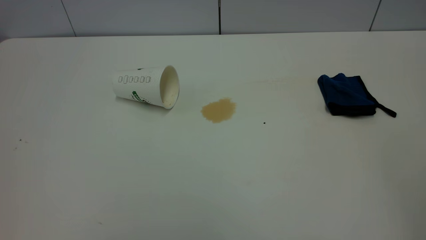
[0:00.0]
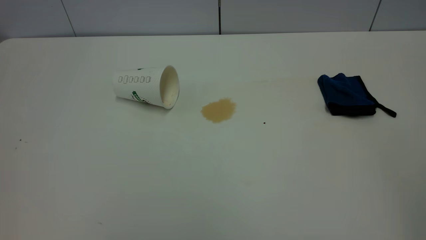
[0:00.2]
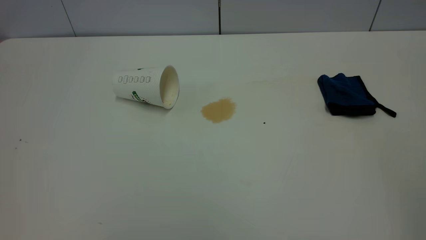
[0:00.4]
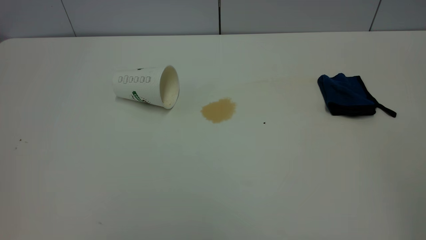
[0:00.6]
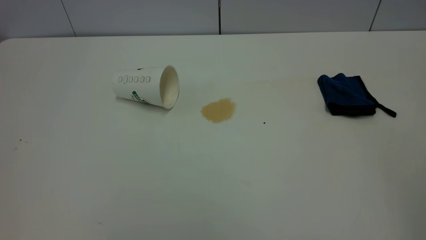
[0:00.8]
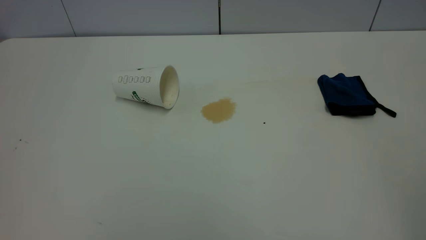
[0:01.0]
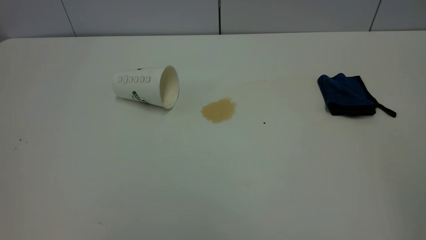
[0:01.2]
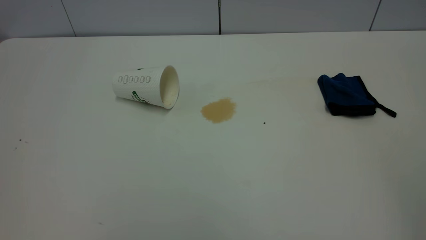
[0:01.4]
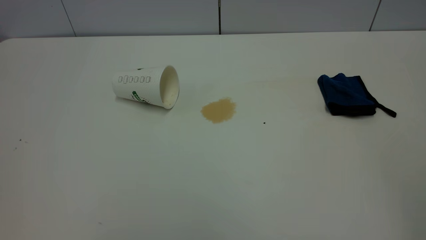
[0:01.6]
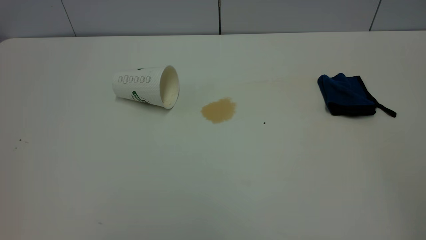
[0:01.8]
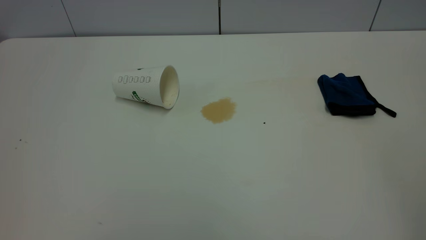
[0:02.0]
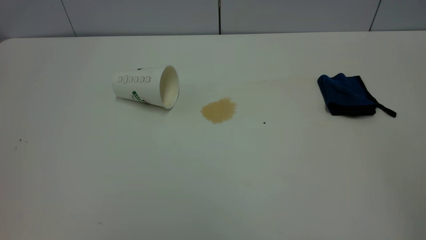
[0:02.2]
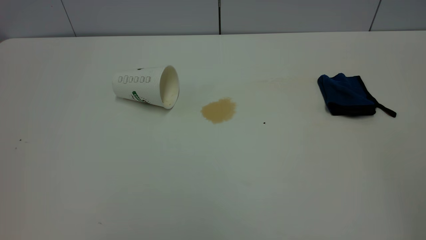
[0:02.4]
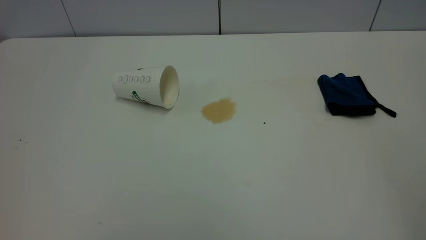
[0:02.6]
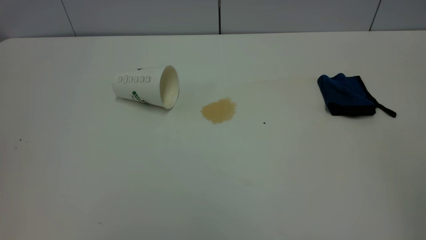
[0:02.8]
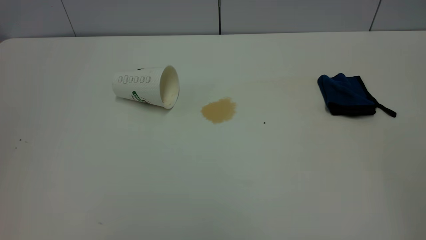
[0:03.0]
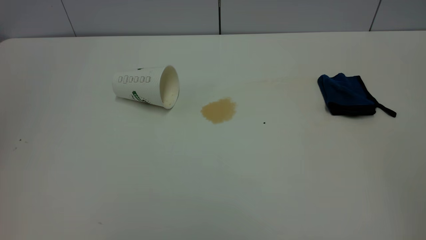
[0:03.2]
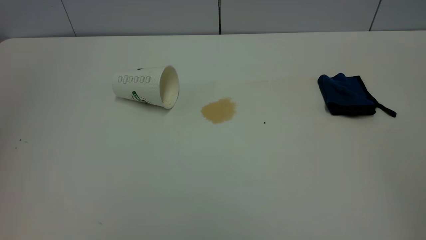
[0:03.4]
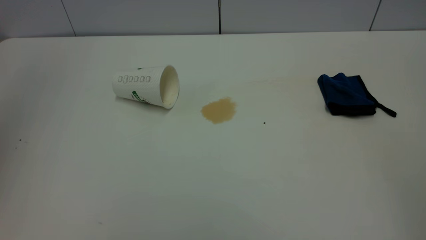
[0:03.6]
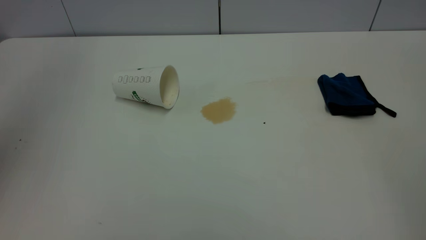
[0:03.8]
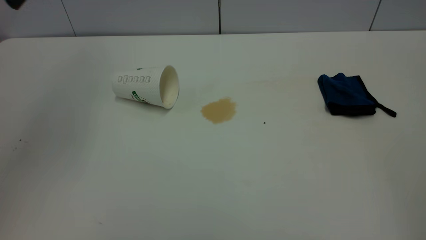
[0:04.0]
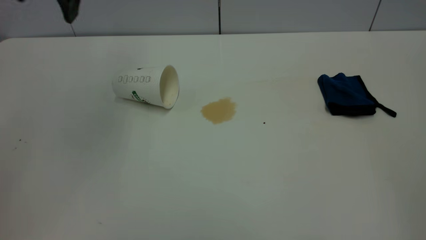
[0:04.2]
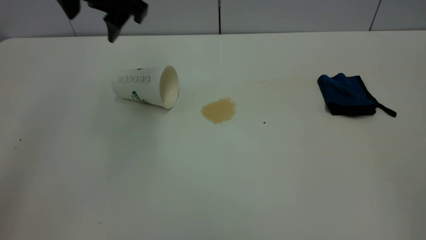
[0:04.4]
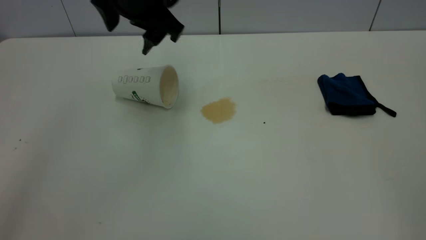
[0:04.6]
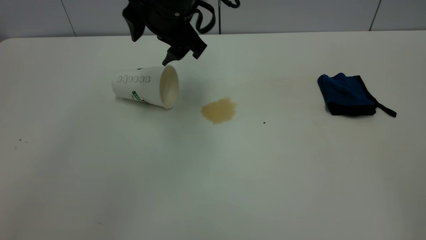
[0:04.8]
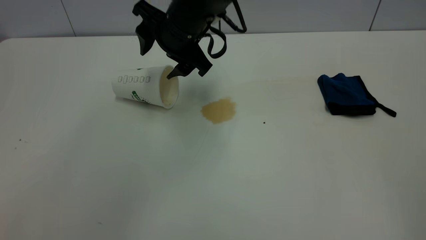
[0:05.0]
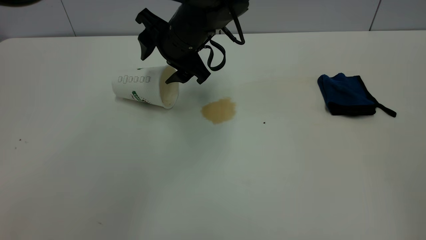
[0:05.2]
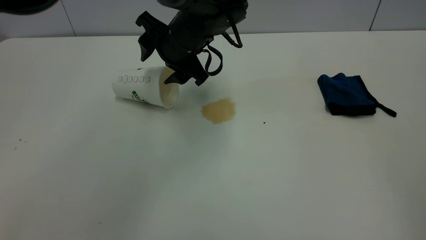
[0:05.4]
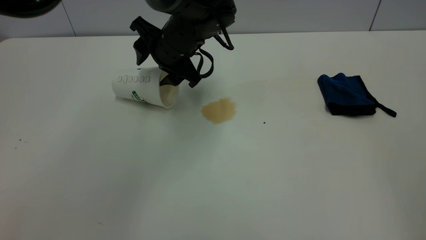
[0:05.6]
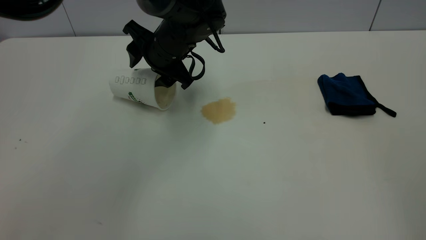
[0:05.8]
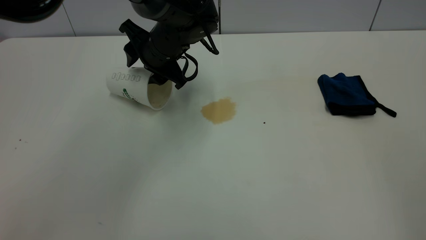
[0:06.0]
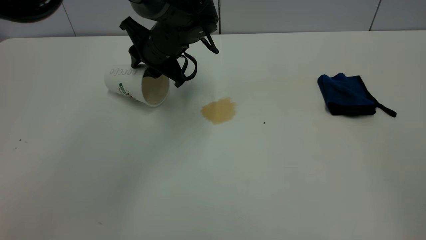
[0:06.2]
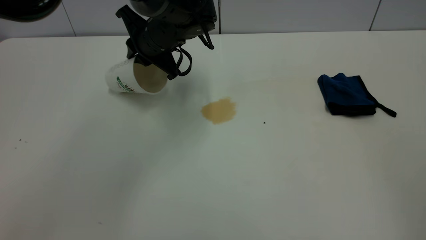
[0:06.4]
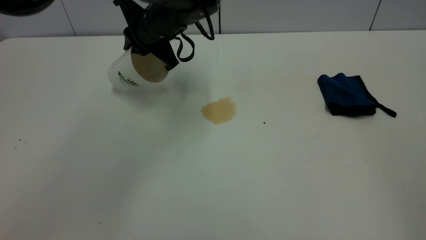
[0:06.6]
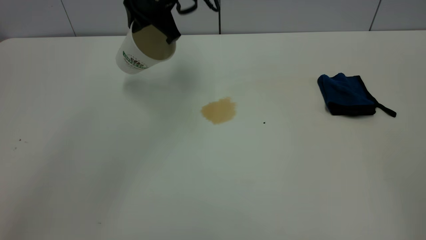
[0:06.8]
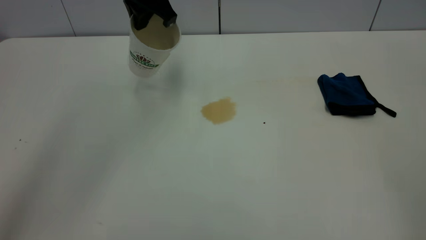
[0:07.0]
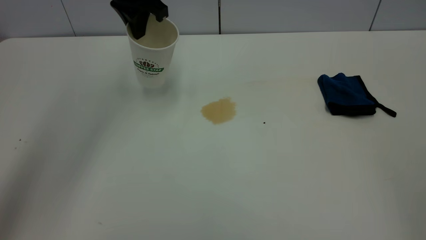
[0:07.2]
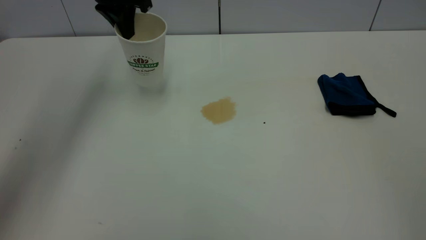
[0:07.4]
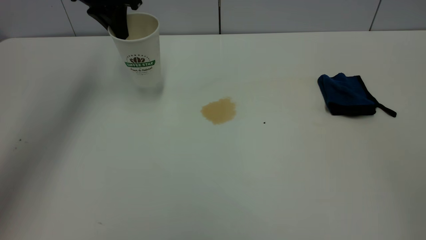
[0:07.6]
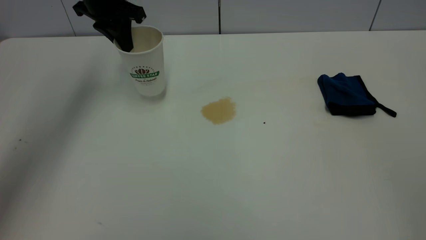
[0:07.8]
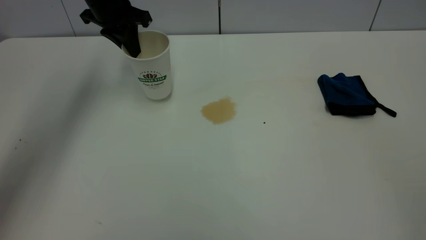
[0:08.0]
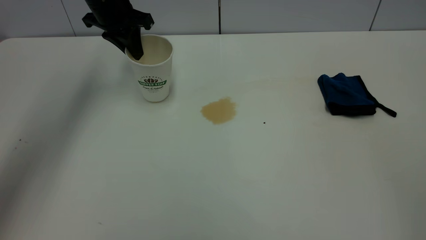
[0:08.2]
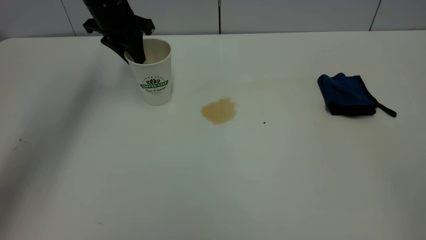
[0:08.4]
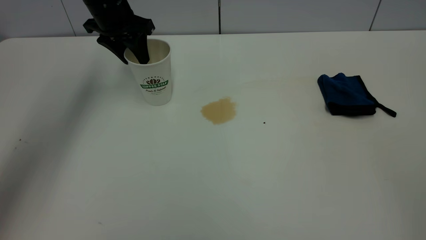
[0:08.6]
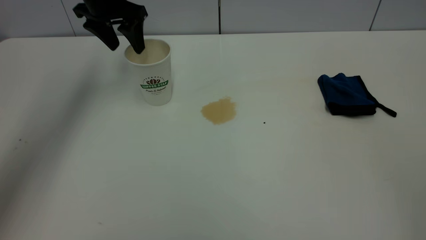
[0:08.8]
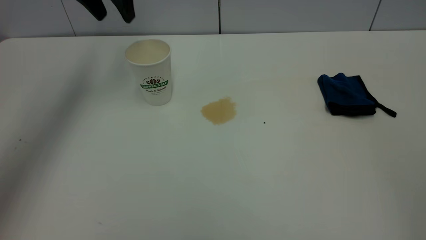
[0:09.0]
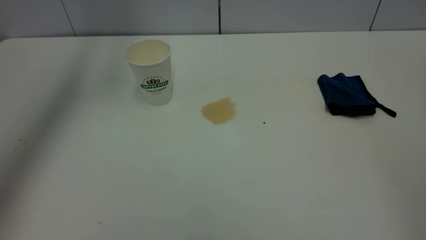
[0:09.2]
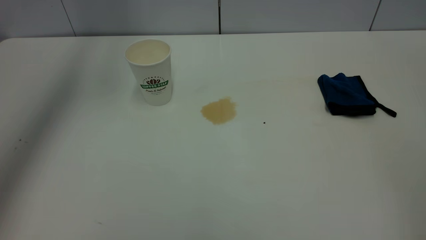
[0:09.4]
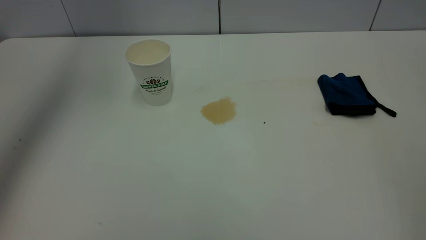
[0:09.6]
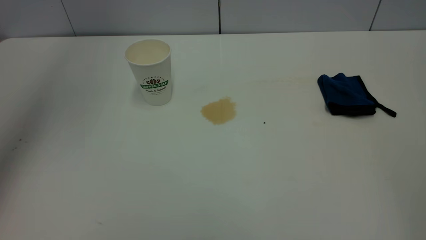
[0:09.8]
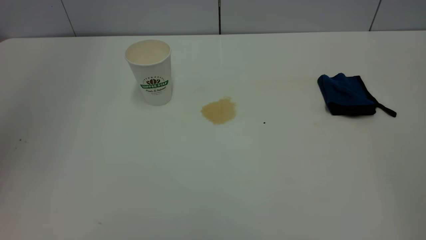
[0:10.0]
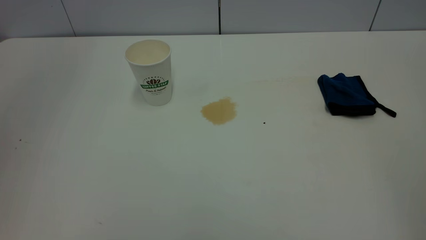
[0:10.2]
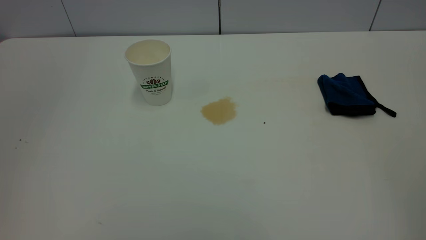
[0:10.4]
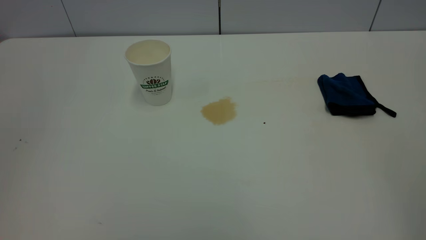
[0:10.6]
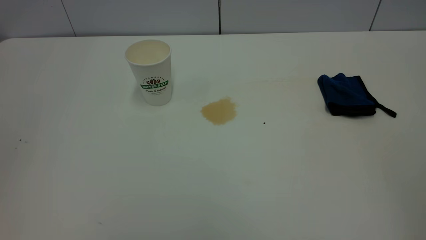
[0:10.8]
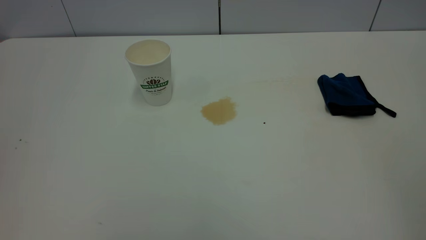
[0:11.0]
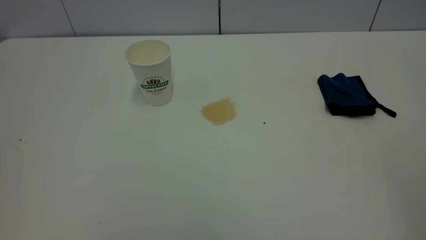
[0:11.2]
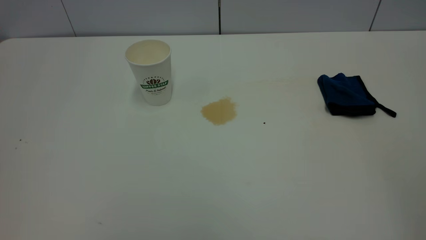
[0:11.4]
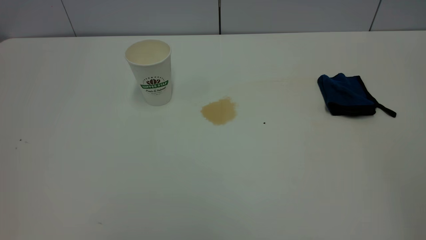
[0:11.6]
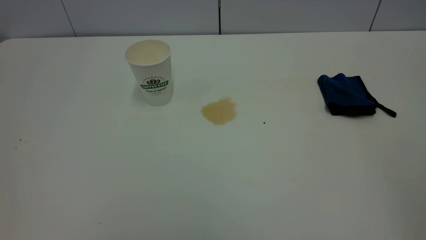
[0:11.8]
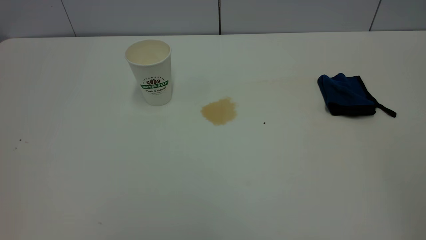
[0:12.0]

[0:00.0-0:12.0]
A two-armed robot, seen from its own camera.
Task of the whole recording: the left gripper pick up the fallen cup and place it upright, the right gripper grasp the blue rag and wipe the tea stain on the table, the right gripper put the blue rag back in its original position.
Step, 0:00.0 to 0:08.8: Stand the paper cup upright.
0:00.0 to 0:01.6: Both grippers stay put.
0:03.0 to 0:04.4: The left gripper heads forward, to the right and downward, covering roughly 40 cm, and opens its fingers.
0:04.4 to 0:06.0: The left gripper shifts approximately 15 cm downward and forward.
0:06.0 to 0:07.6: The left gripper moves to the left, upward and forward, some 15 cm, and closes its fingers.
0:07.6 to 0:09.0: The left gripper shifts about 5 cm upward, and opens.
0:09.0 to 0:10.4: The left gripper goes about 35 cm backward, and closes its fingers.

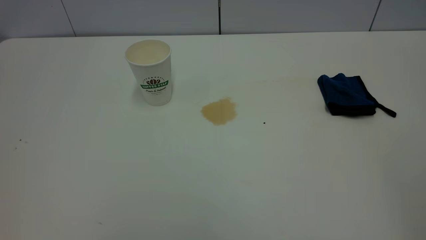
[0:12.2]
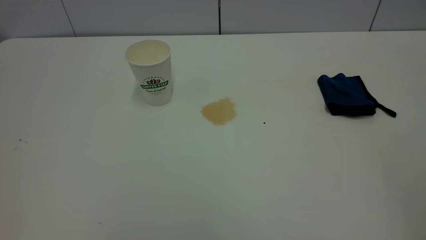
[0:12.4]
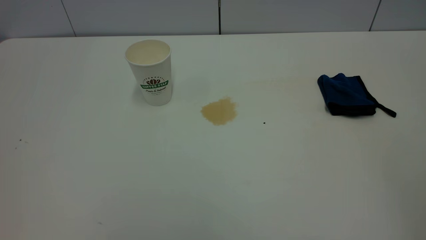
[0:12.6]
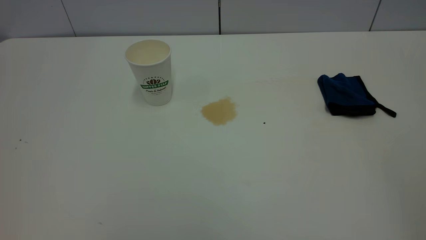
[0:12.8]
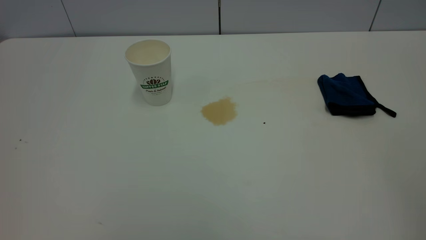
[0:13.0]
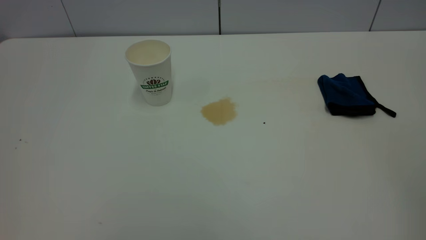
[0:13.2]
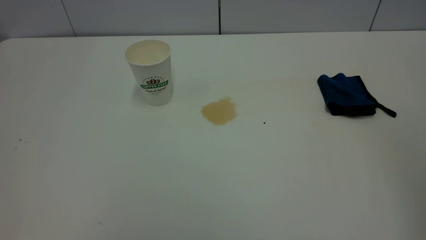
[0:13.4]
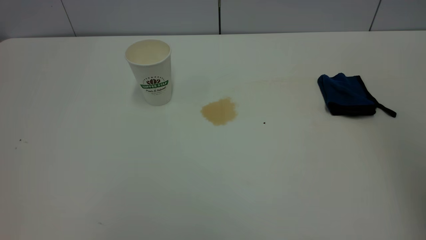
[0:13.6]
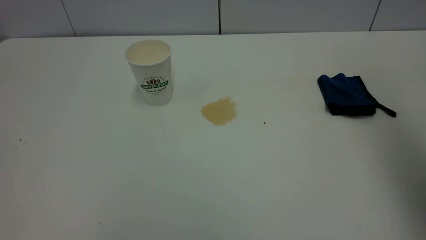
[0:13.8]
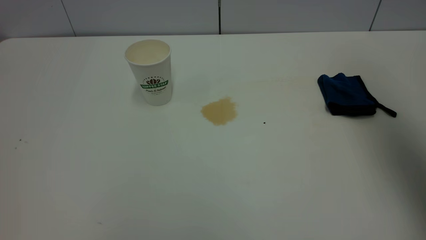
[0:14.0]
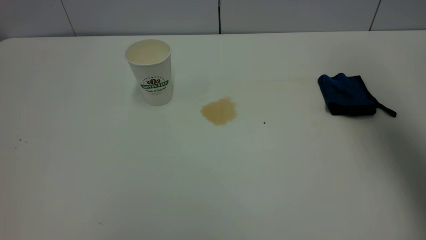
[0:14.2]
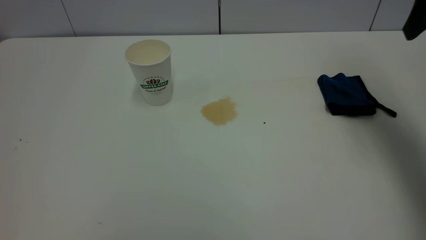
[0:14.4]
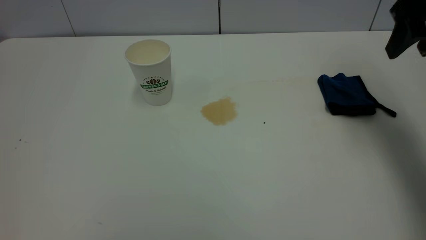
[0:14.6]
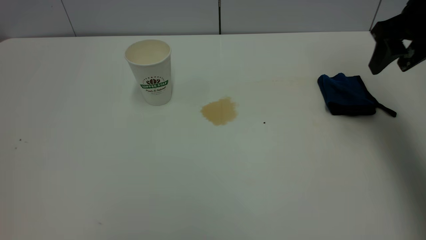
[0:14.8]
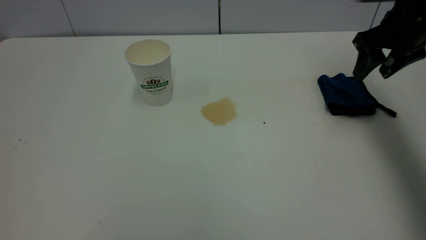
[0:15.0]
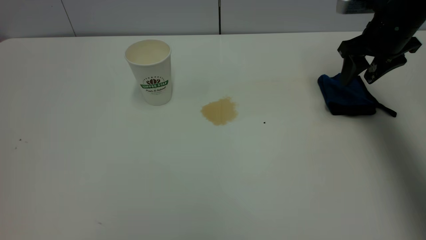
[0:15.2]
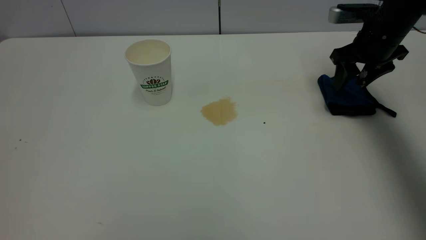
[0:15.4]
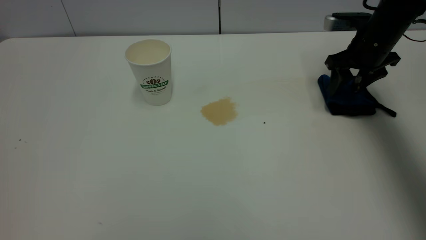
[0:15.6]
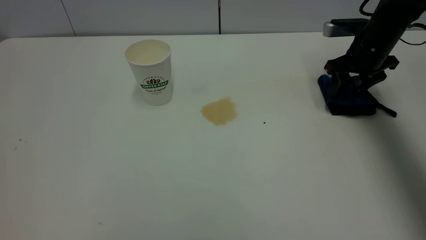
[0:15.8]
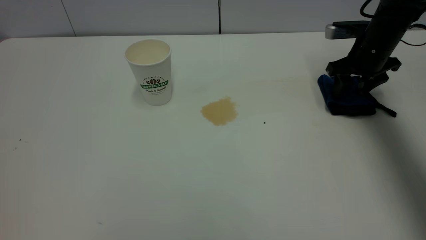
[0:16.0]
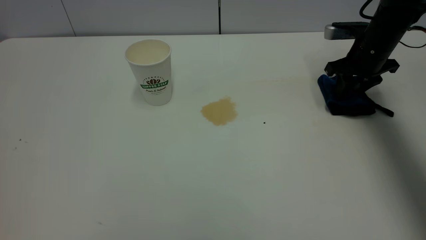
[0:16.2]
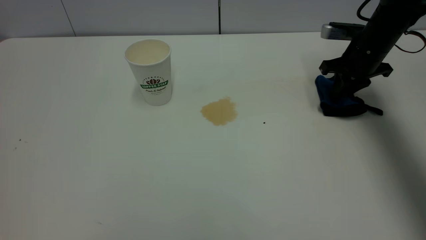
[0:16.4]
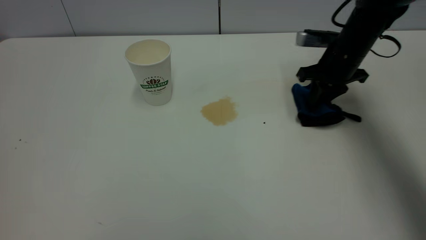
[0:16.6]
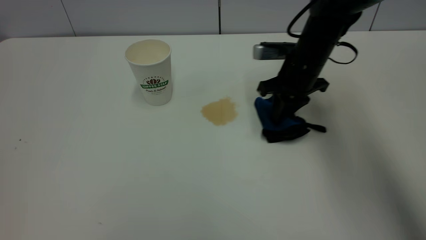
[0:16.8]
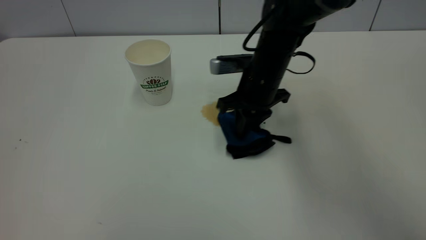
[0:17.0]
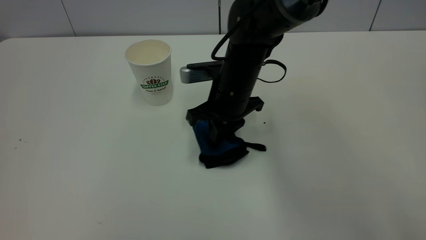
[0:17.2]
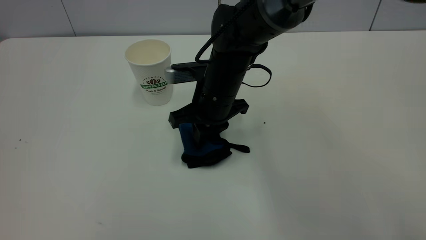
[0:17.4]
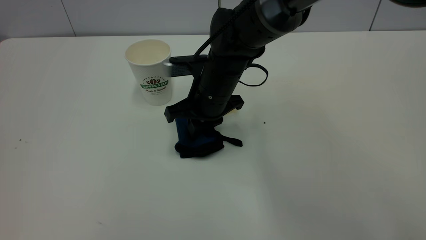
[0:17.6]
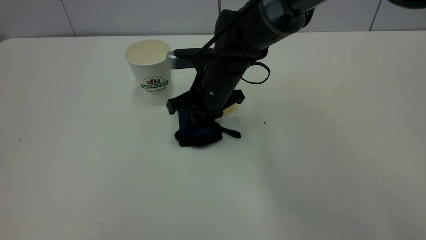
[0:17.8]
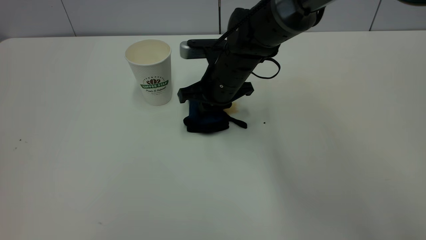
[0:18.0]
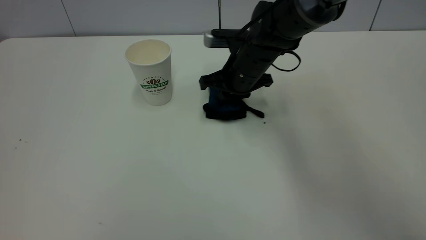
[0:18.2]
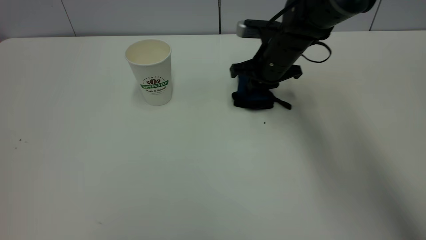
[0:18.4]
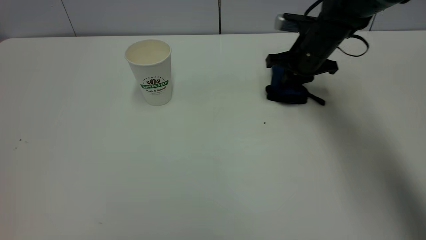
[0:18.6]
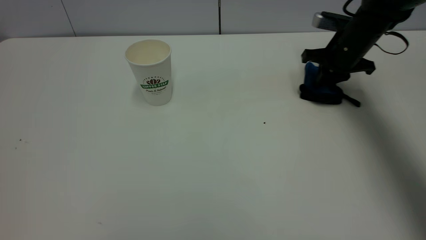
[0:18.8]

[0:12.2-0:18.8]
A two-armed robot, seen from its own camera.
Task of the whole recording: the left gripper pick up the fallen cup and place it upright, the right gripper grasp the blue rag and wipe the tea stain on the table, the right gripper put the blue rag back in its original position.
0:12.2 to 0:13.8: The right gripper travels forward by some 25 cm.
0:13.8 to 0:15.4: The right gripper is displaced downward and forward by roughly 35 cm.
0:15.4 to 0:17.2: The right gripper heads to the left, covering some 25 cm, and closes up.
0:17.2 to 0:18.8: The right gripper travels to the right by roughly 25 cm.
